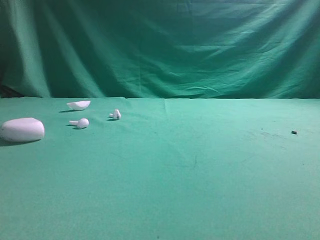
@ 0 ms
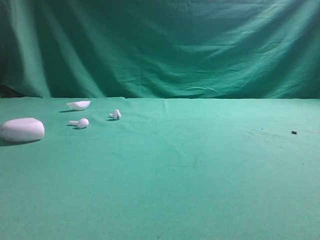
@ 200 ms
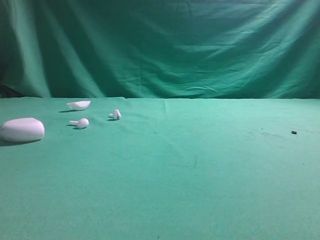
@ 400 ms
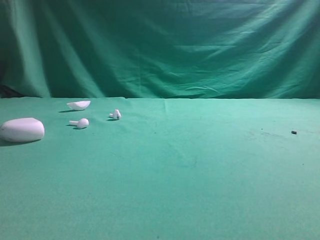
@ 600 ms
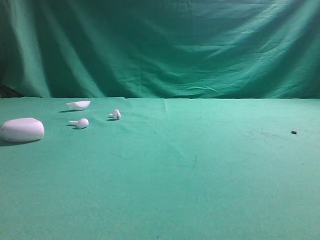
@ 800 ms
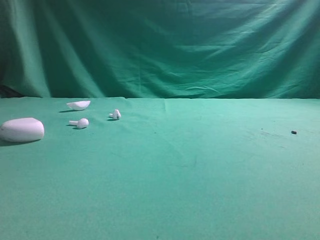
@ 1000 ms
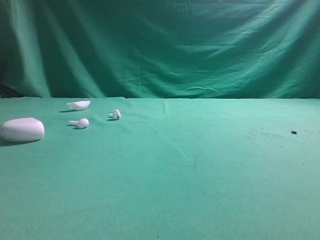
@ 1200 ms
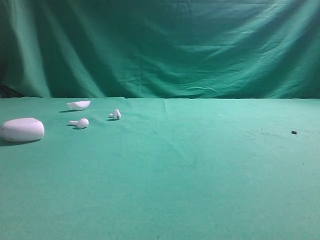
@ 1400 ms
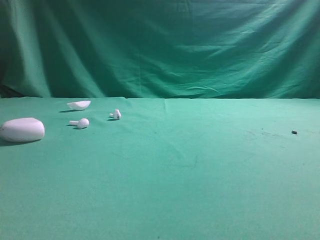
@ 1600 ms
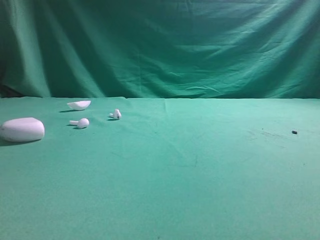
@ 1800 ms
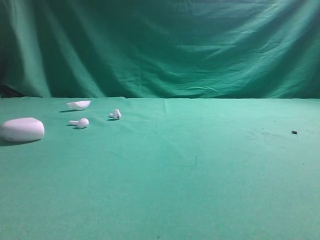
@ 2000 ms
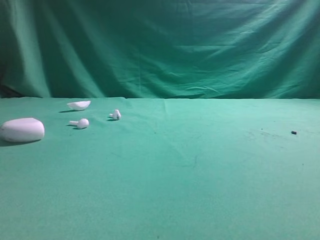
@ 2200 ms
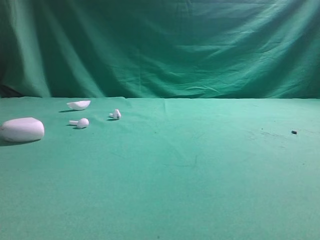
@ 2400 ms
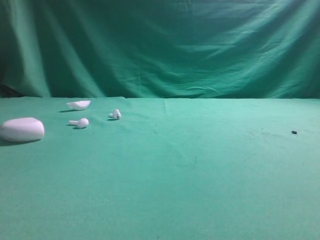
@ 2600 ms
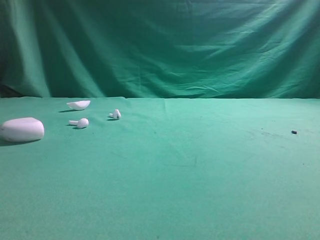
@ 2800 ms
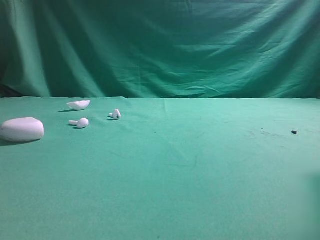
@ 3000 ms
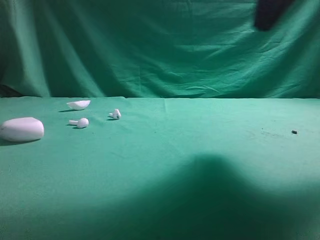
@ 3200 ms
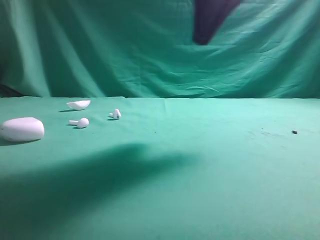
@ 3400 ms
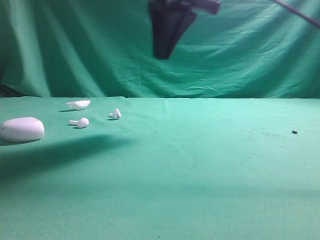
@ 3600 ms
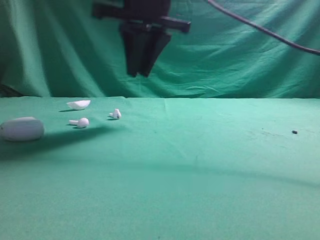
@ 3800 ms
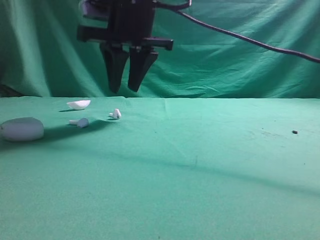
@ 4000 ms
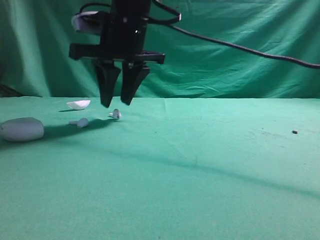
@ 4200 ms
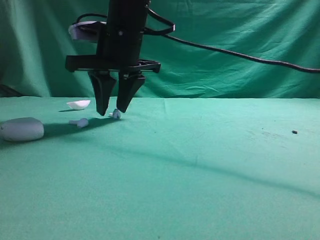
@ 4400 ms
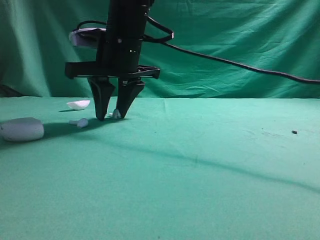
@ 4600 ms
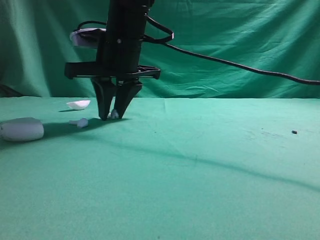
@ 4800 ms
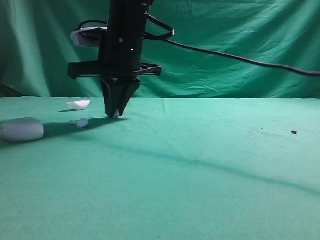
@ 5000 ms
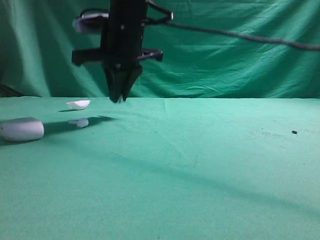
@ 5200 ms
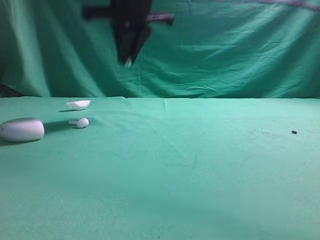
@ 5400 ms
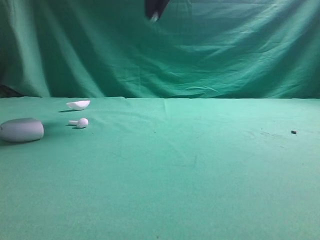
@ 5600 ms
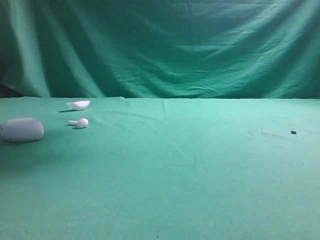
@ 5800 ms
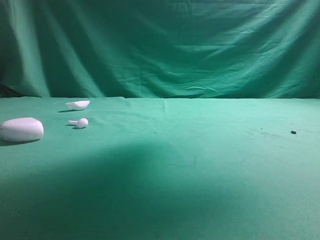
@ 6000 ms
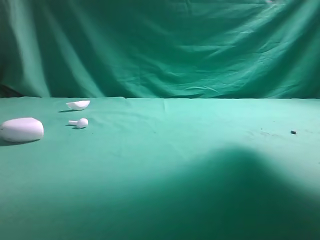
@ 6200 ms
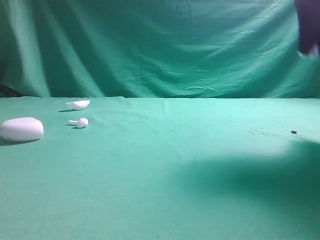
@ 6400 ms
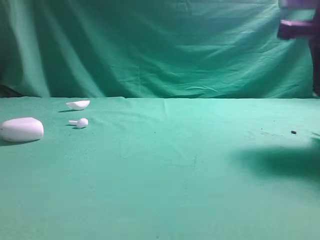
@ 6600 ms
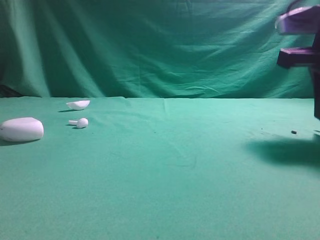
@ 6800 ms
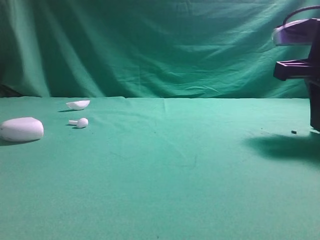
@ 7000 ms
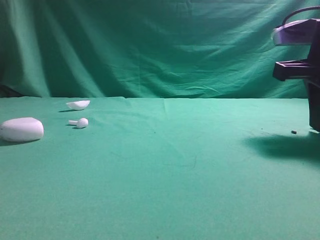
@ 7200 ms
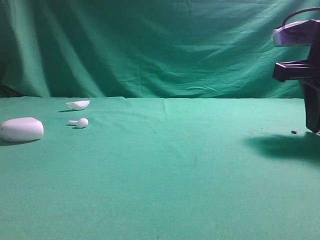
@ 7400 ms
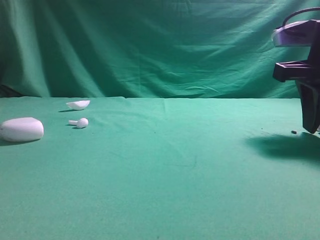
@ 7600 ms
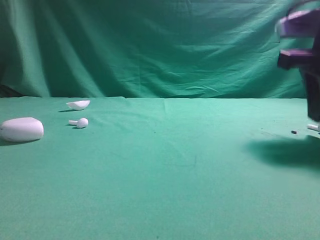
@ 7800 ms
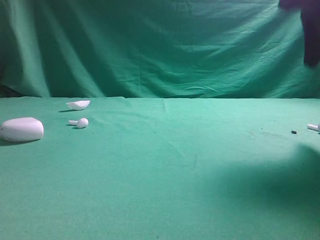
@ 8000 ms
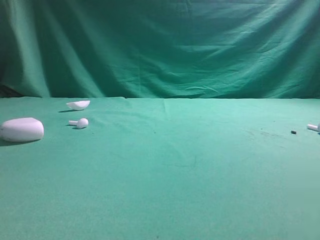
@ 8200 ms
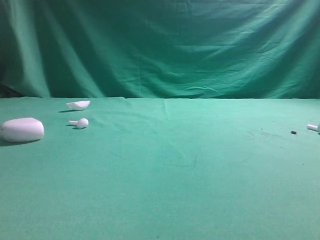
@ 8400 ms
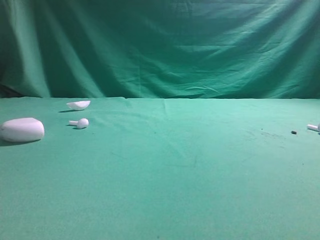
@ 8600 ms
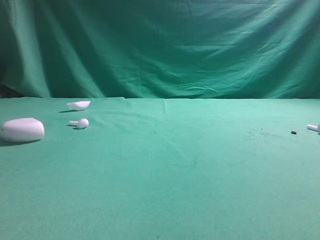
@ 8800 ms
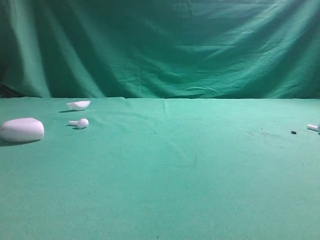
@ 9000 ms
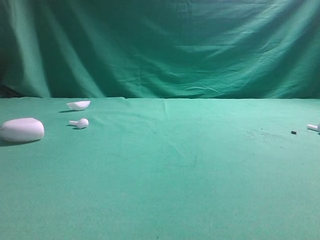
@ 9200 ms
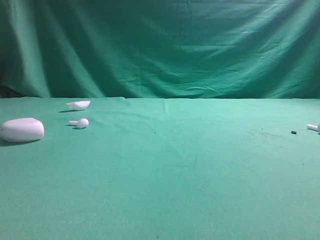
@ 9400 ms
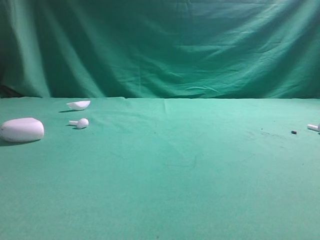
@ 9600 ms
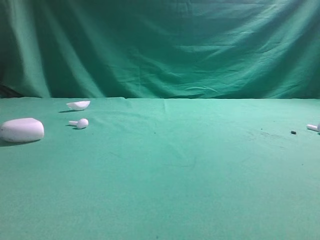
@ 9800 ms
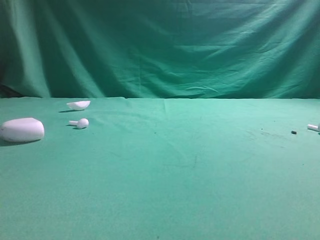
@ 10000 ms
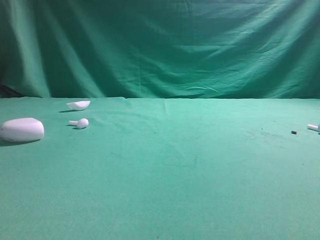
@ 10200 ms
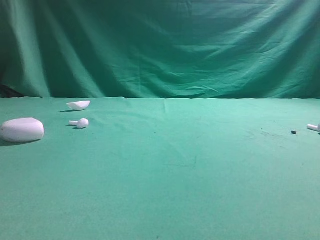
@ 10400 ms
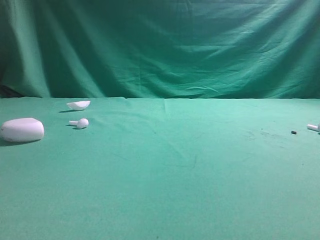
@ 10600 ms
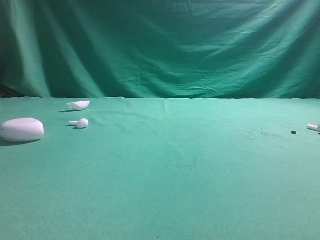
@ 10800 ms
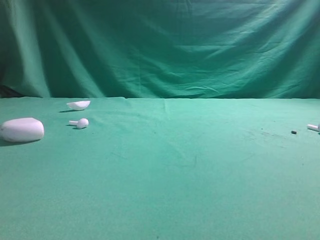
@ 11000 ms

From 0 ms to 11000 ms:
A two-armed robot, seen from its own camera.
Step, from 0 ms to 5000 ms: Grasp the Bluetooth earbud.
Step, from 5200 ms to 7800 ms: Place bluetooth earbud on the right side of the table.

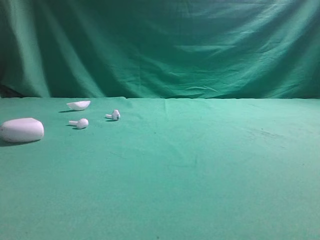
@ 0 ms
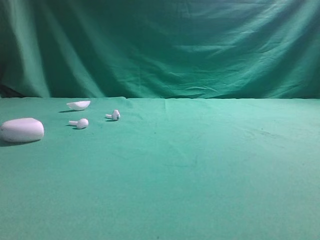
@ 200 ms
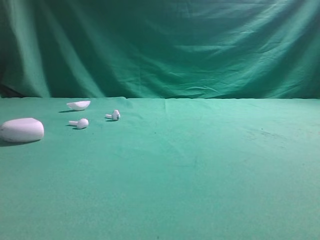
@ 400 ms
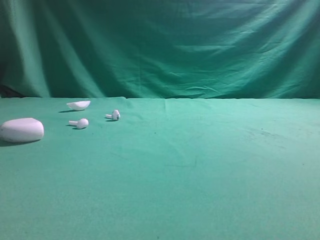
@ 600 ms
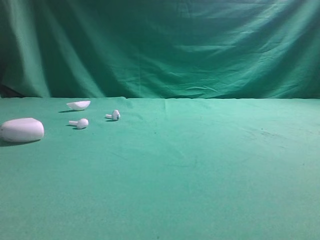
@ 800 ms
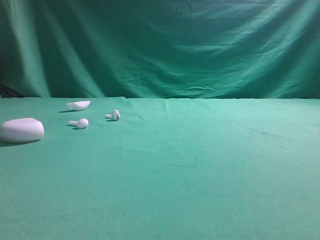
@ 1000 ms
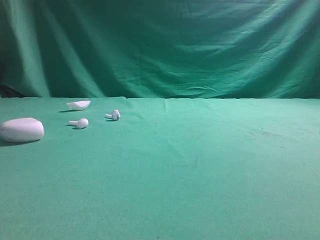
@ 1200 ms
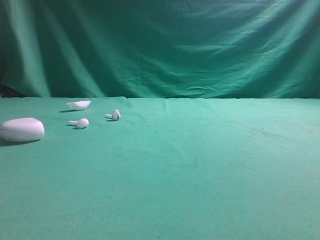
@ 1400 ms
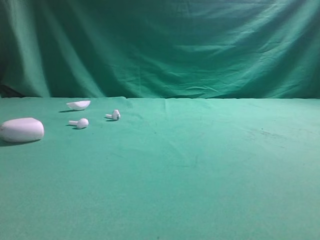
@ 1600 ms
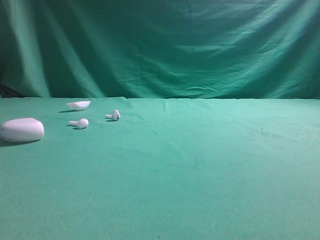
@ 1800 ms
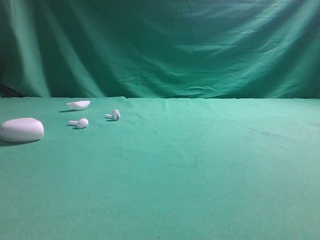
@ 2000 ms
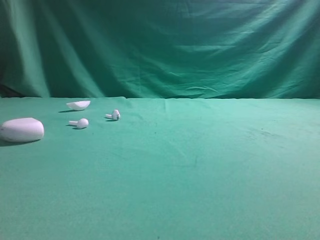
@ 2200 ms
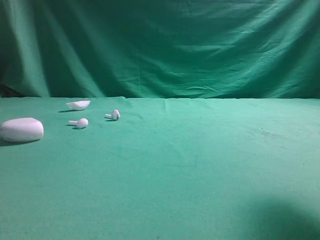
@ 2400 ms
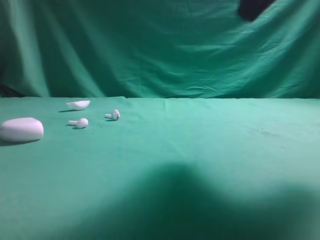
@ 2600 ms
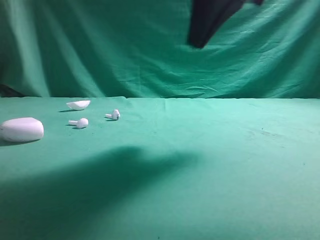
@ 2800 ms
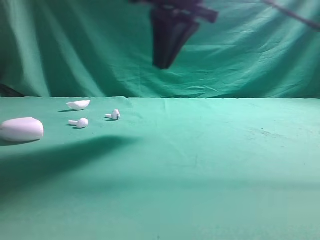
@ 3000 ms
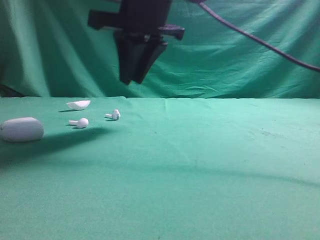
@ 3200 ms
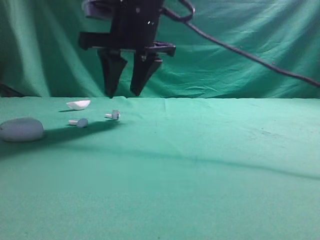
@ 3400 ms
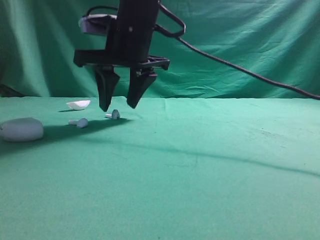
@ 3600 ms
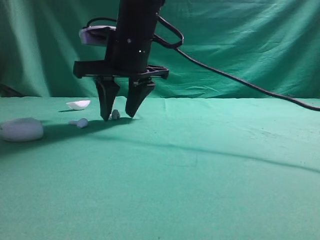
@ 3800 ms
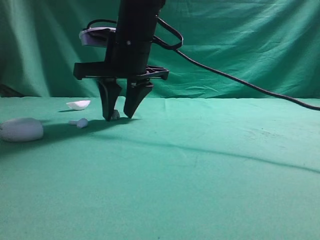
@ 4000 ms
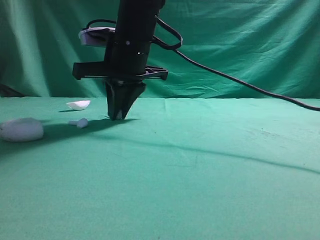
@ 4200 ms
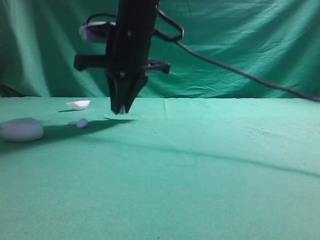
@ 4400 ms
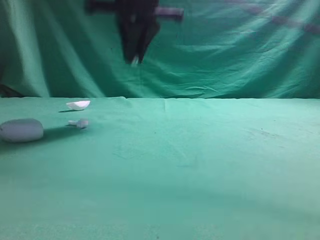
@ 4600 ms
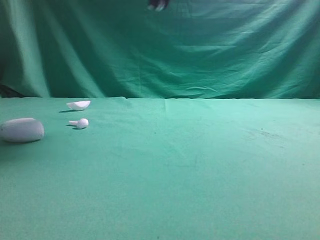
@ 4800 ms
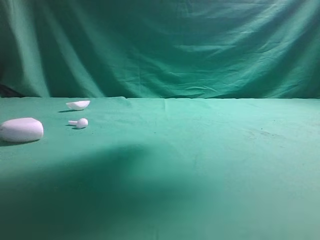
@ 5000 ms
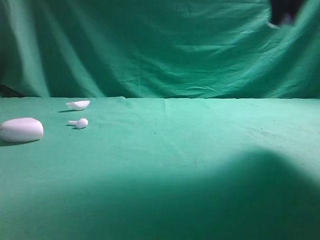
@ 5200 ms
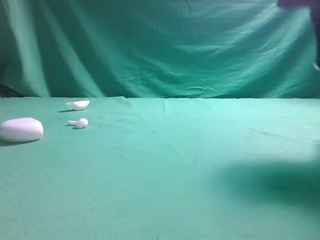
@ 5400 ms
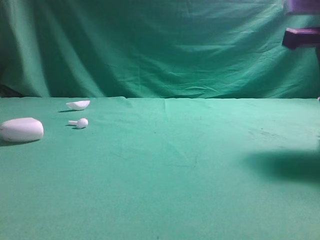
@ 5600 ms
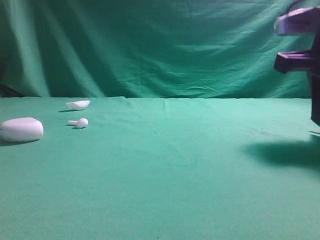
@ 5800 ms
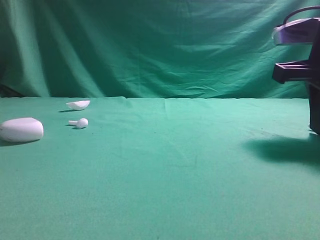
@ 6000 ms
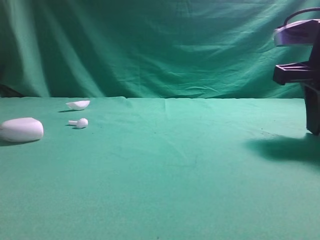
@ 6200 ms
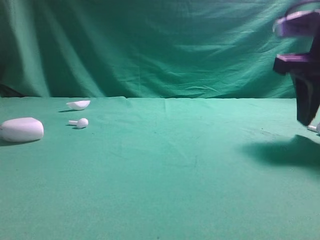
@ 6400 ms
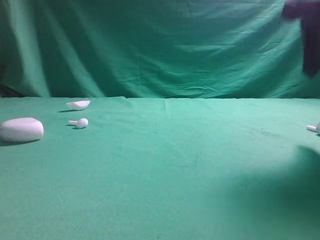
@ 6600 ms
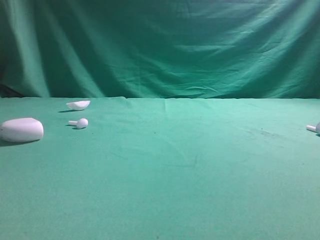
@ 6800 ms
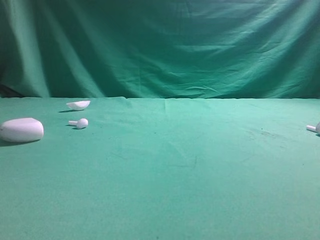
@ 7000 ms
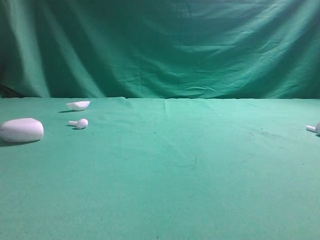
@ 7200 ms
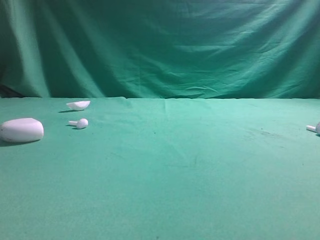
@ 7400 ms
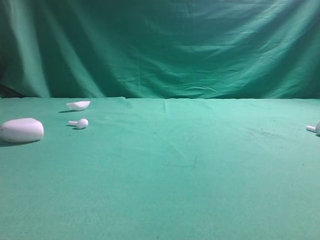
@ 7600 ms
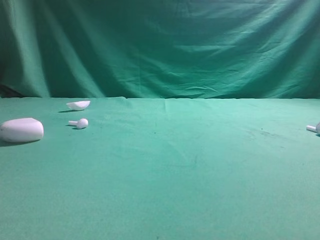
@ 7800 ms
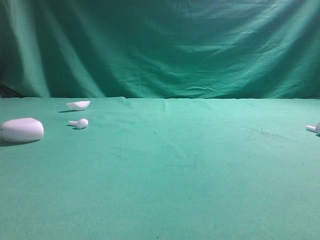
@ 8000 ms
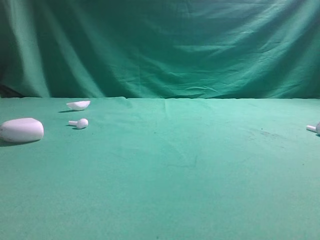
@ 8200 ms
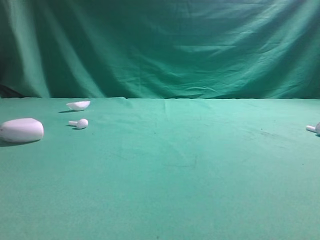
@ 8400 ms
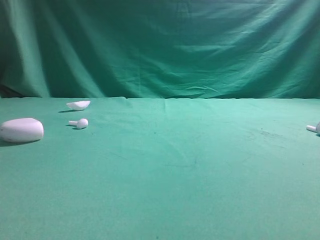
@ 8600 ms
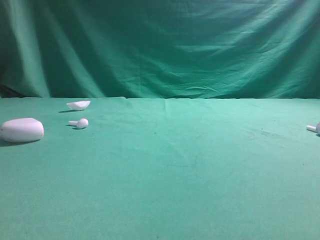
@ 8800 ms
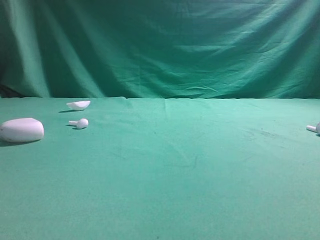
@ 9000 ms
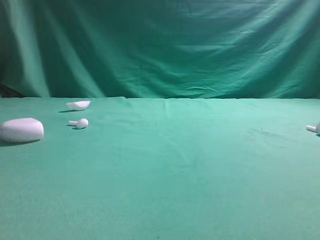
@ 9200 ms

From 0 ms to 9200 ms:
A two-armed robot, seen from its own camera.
Step, from 0 ms to 4600 ms: Grasp the Bluetooth earbud.
Step, from 4800 ms to 6600 ms: Place bluetooth earbud on the right side of the table.

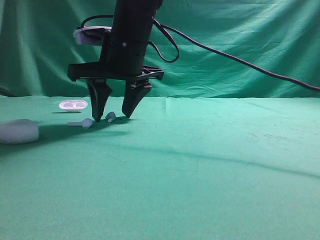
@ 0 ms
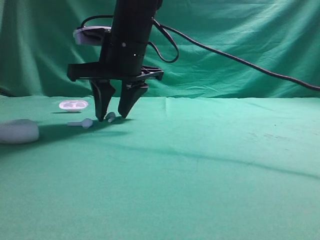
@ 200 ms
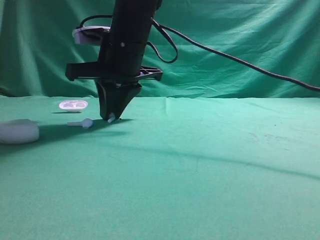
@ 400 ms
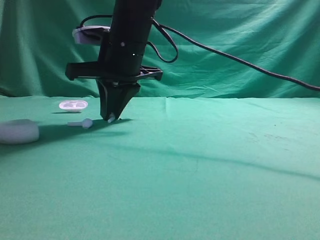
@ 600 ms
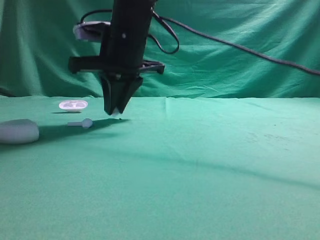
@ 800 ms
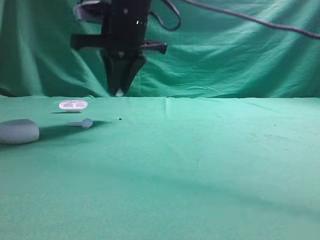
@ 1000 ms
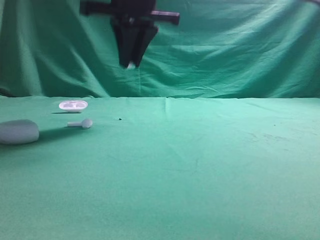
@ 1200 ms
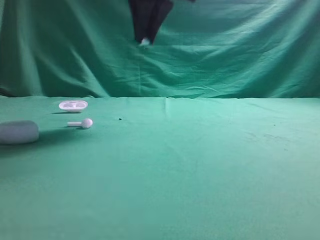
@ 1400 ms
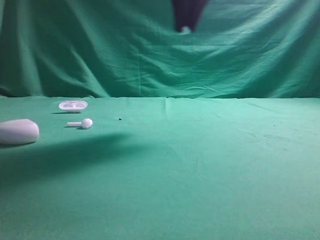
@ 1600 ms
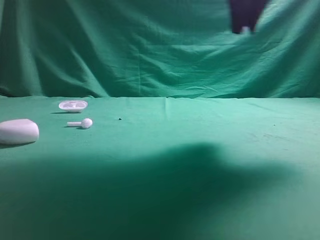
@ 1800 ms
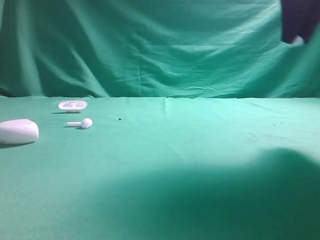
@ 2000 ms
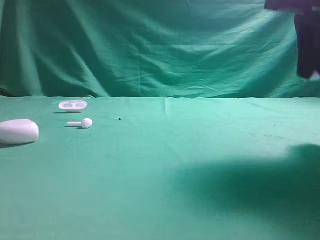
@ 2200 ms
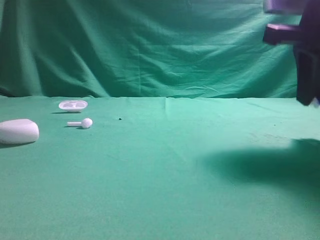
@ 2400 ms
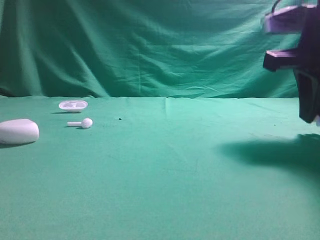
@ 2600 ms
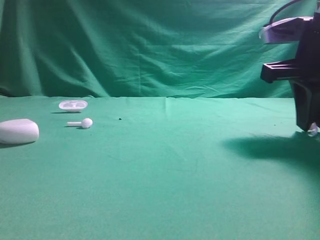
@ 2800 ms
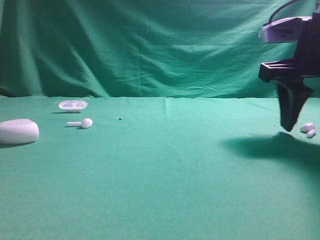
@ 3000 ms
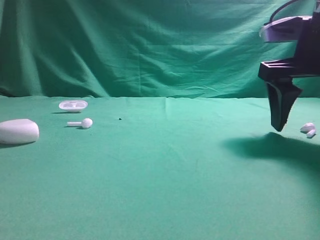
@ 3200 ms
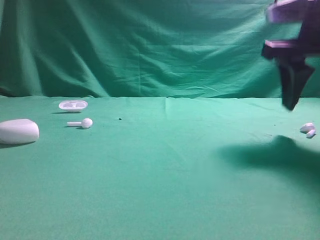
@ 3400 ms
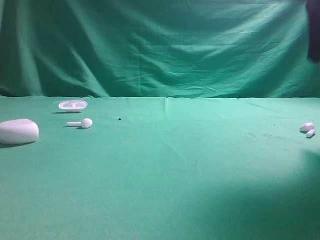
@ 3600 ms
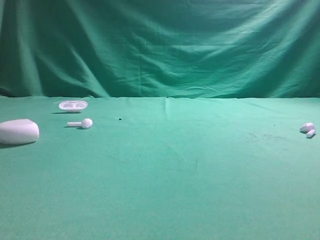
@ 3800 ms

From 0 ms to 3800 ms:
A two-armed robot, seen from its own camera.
Step, from 1200 ms to 3000 ms: Place bluetooth earbud on the right side of the table.
